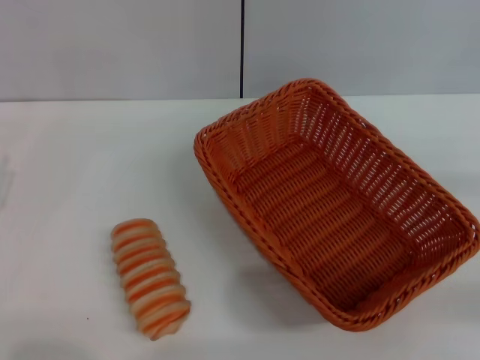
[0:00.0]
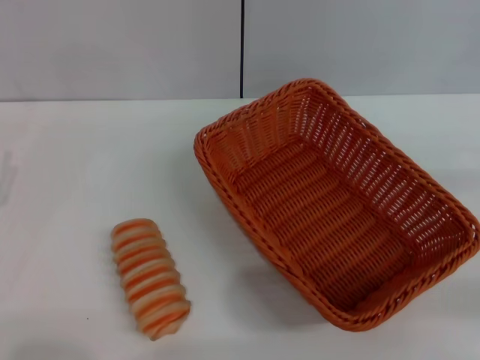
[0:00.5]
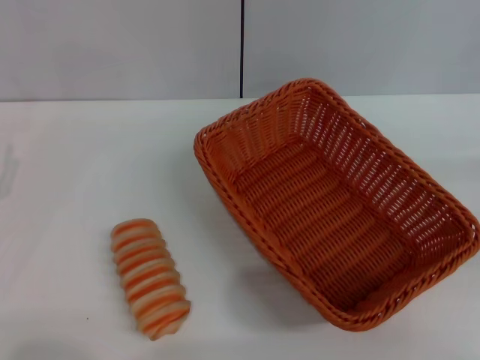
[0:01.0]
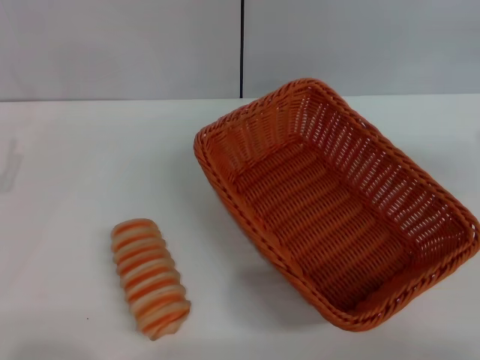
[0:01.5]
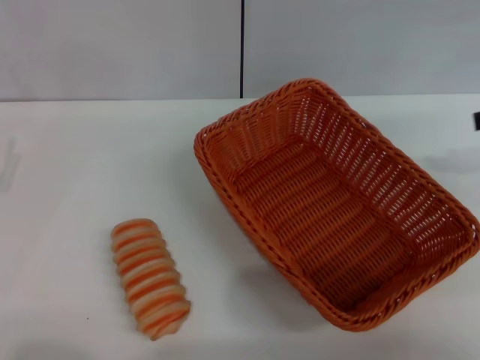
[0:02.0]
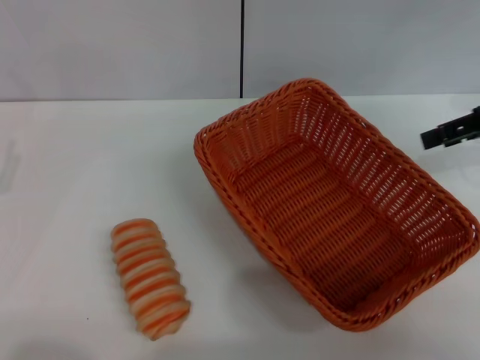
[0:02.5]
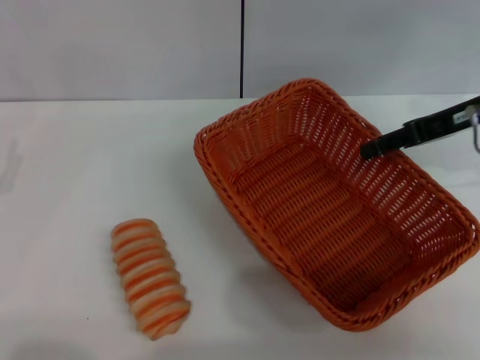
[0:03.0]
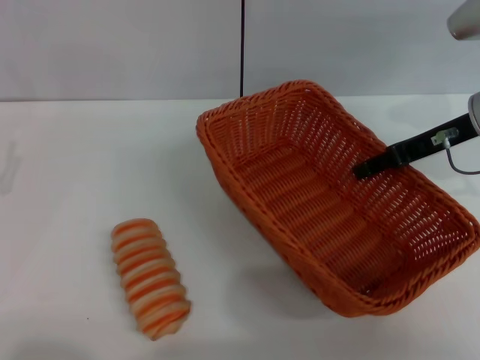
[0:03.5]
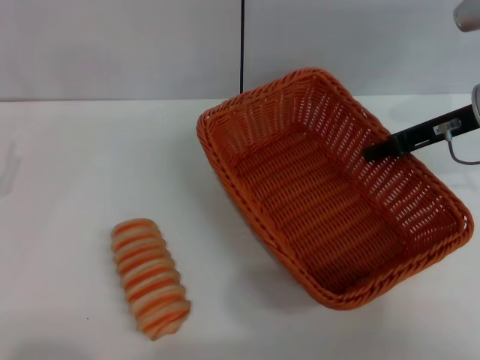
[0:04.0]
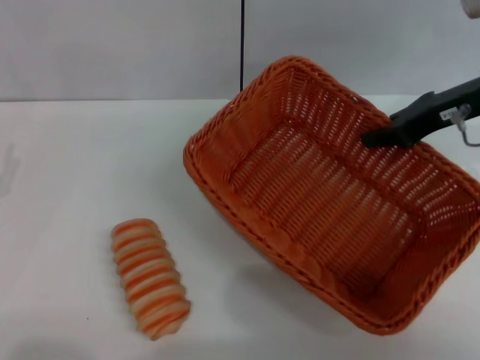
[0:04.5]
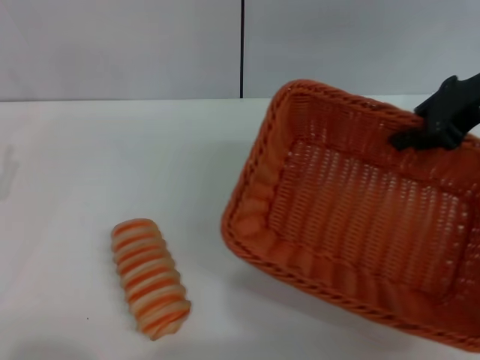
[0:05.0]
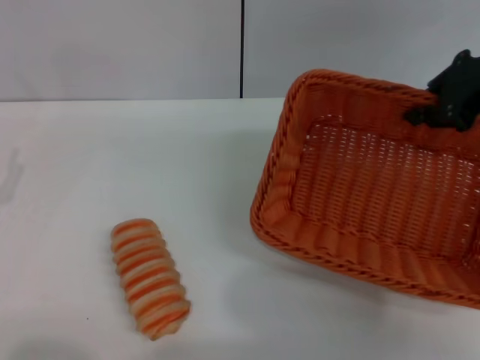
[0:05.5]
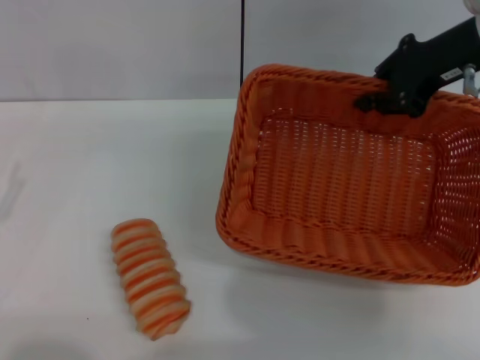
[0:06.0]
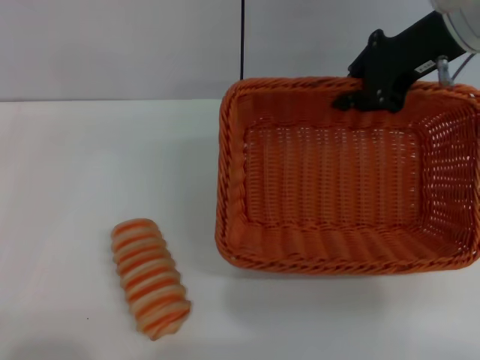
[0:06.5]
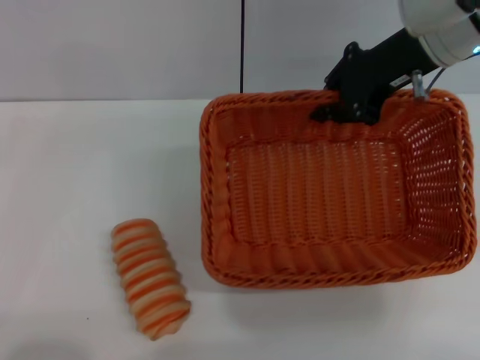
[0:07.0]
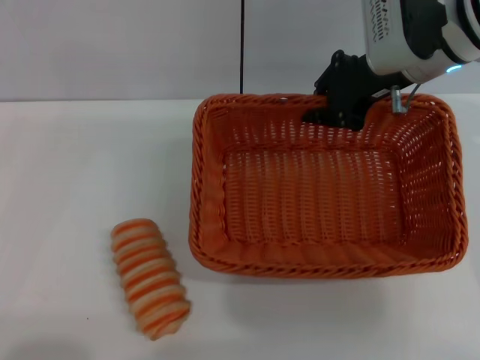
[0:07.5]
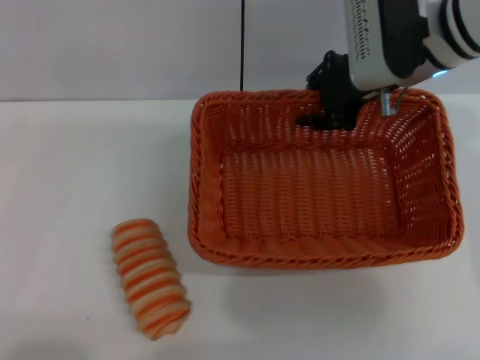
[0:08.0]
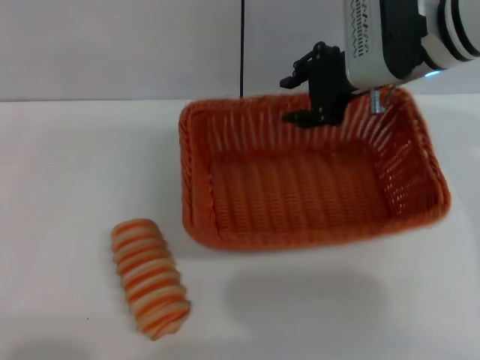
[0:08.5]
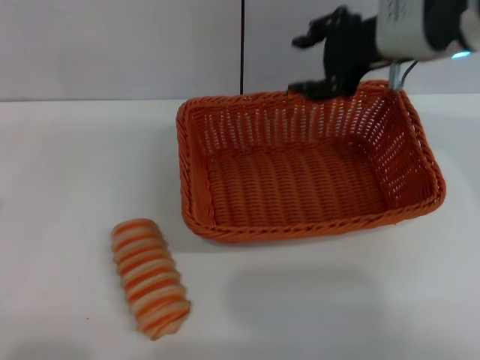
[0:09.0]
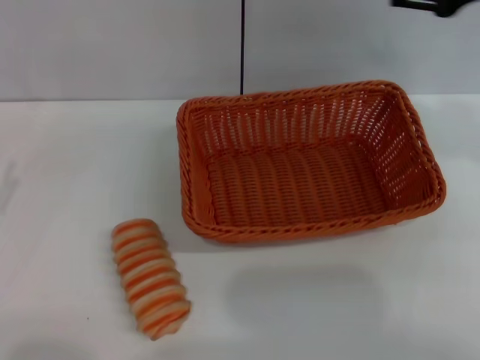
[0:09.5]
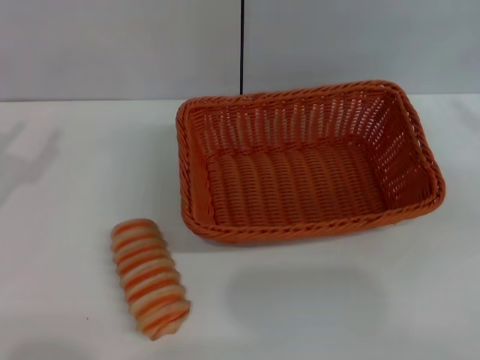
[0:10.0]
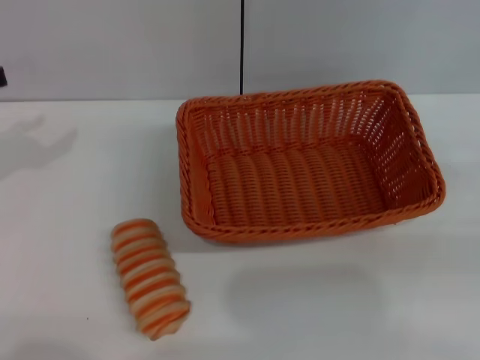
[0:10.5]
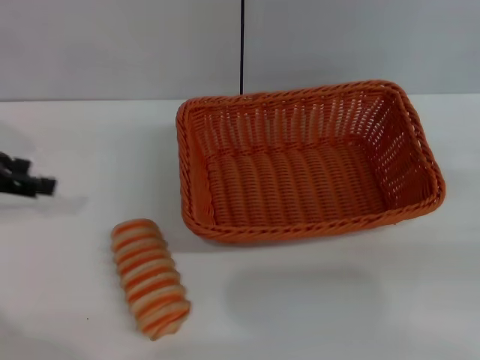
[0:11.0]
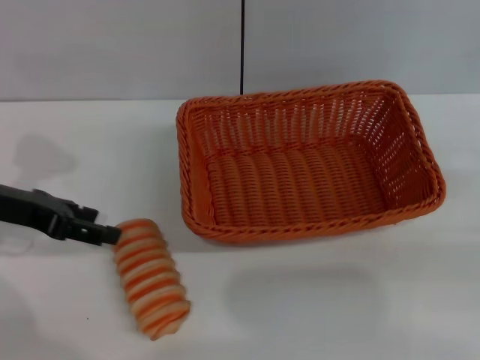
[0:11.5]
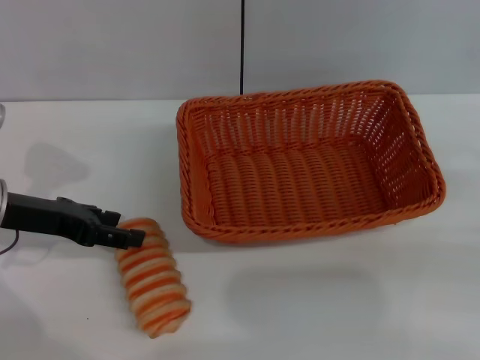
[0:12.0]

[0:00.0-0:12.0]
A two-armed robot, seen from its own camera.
Step, 0:00.0 to 0:04.5: Pick up the light basket with the right gripper.
Step, 0:05.0 to 0:09.0: Place the light basket in the center of view with the right gripper.
0:00.0 to 0:02.0: The right gripper goes some 20 cm upward and forward.
0:02.0 to 0:04.0: The right gripper heads to the left and downward, covering roughly 15 cm, and closes its fingers.
0:04.0 to 0:06.0: The right gripper moves upward, roughly 10 cm.
0:06.0 to 0:08.0: The right gripper travels to the left by roughly 5 cm.
0:08.0 to 0:10.0: The right gripper heads to the right and backward, covering roughly 30 cm, and opens its fingers. The left gripper is displaced forward by some 10 cm.
0:10.0 to 0:12.0: The left gripper shifts roughly 10 cm to the right and forward.

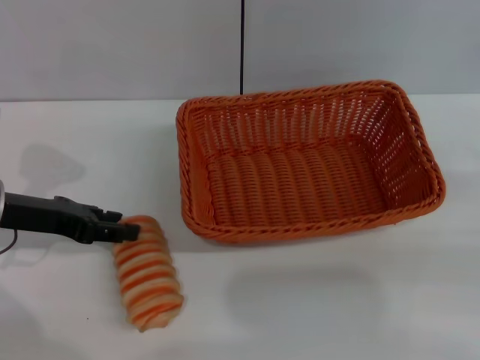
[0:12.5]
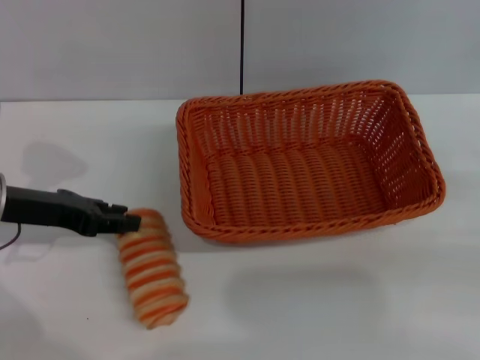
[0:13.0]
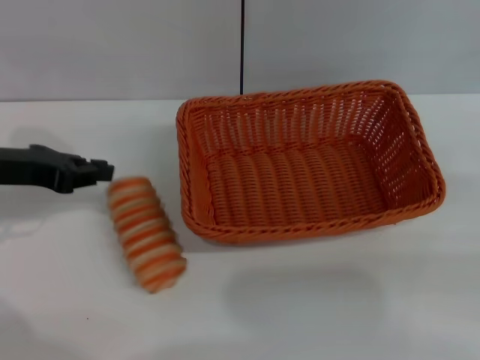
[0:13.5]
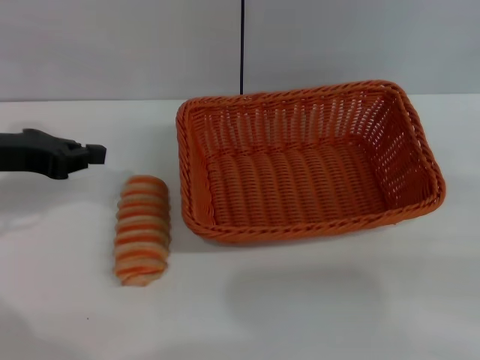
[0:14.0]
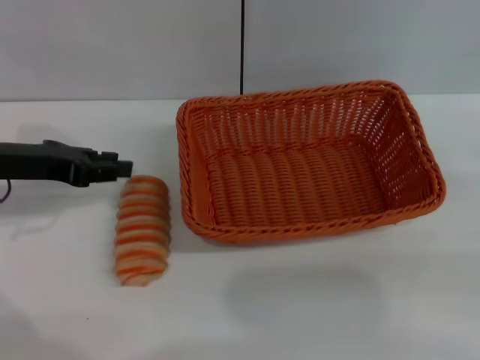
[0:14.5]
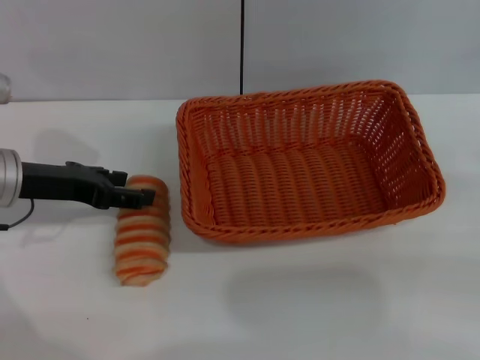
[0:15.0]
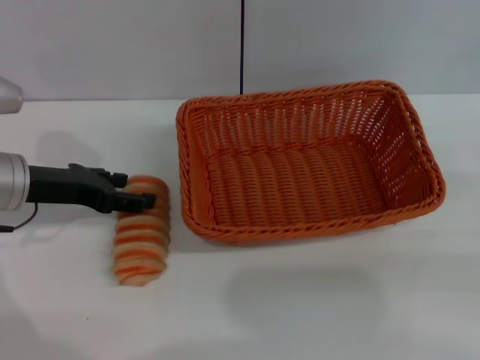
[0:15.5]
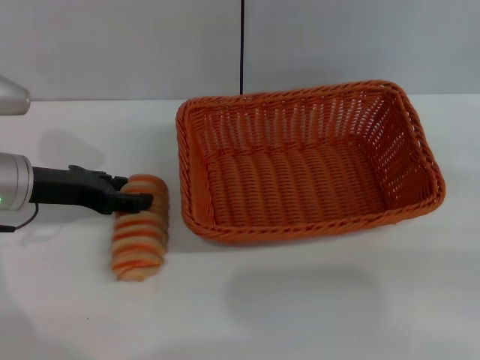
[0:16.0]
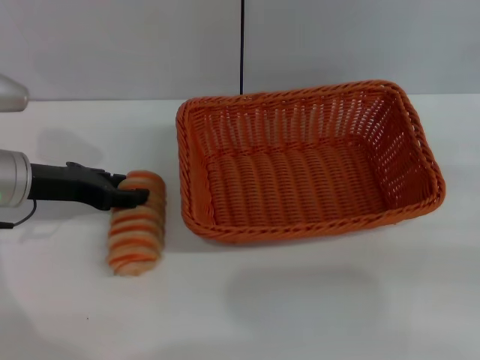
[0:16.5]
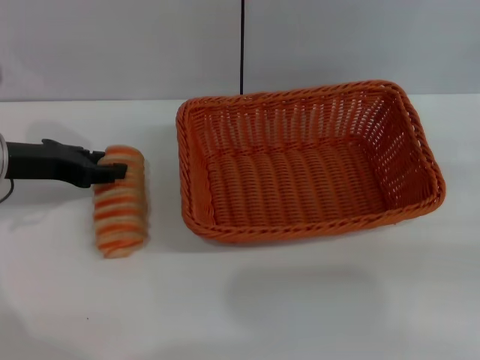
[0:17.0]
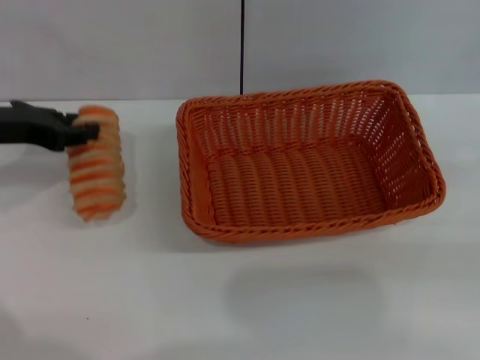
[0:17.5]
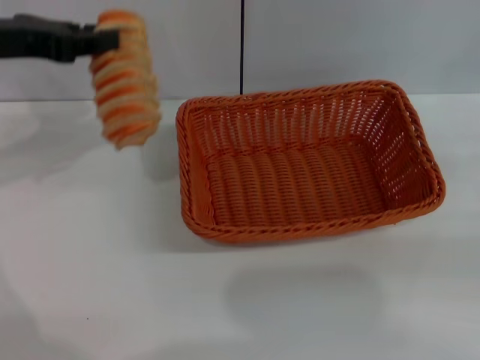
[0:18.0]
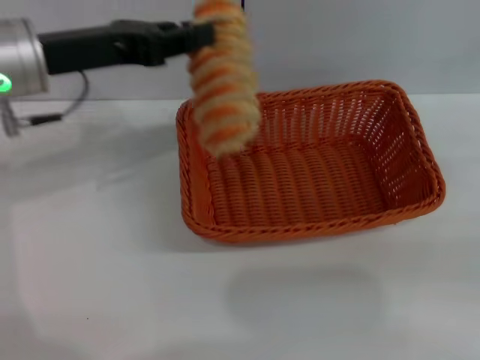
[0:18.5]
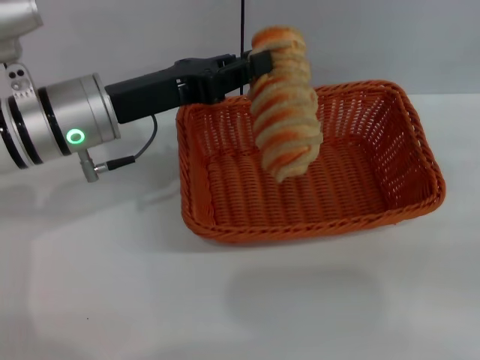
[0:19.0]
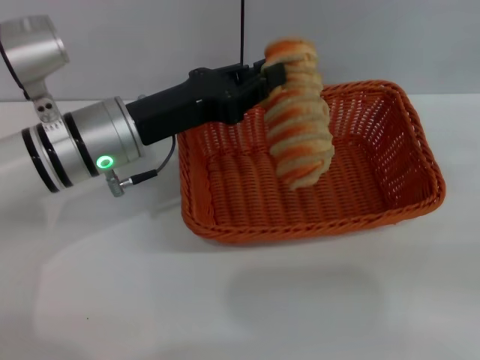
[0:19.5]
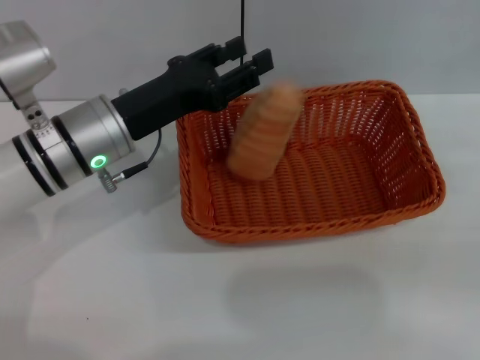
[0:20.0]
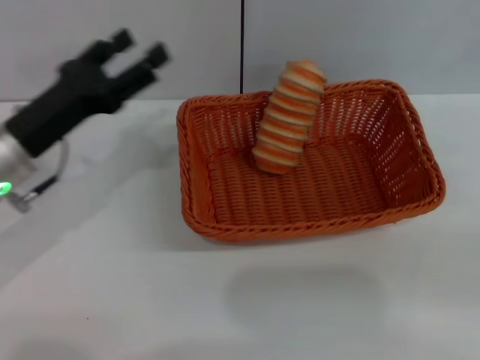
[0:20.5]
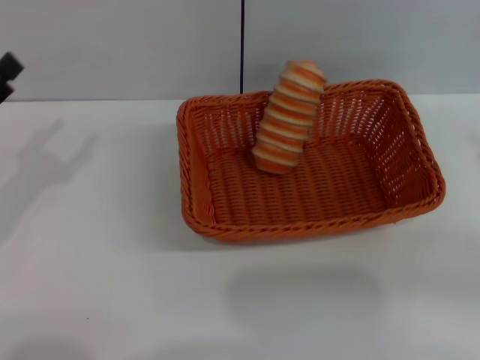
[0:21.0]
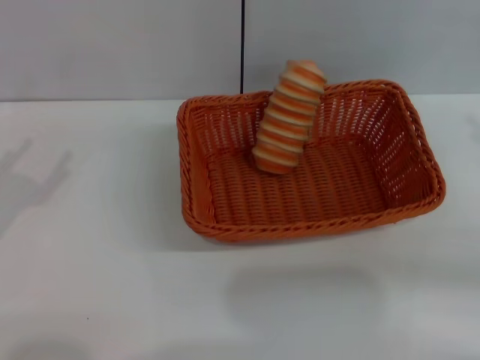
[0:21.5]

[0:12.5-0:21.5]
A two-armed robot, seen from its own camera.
Step, 0:12.5 to 0:17.5: Pick up the long bread with the left gripper.
Step, 0:18.0 to 0:20.0: Place the long bread into the light basket with the left gripper.
0:12.5 to 0:14.5: The left gripper closes its fingers.
0:14.5 to 0:17.0: The left gripper opens, then closes once more.
0:17.0 to 0:19.5: The left gripper travels to the right by roughly 10 cm, and closes.
0:19.5 to 0:21.5: The left gripper goes roughly 20 cm to the left and backward, and opens its fingers, while the right gripper moves to the left, approximately 5 cm.
